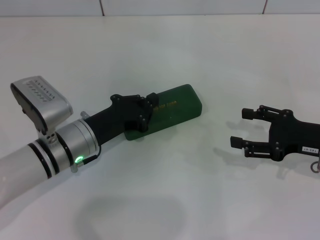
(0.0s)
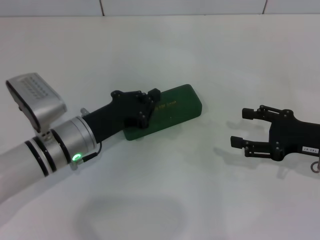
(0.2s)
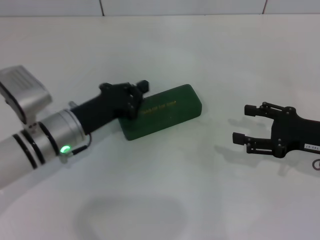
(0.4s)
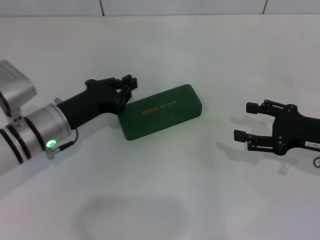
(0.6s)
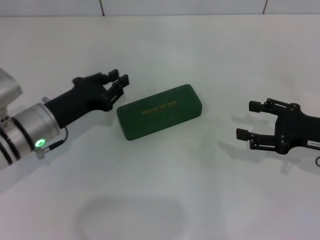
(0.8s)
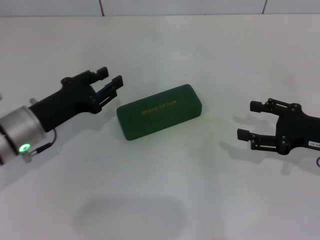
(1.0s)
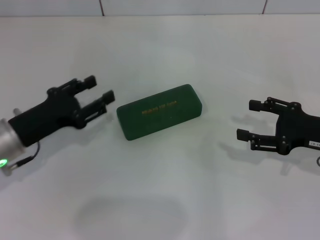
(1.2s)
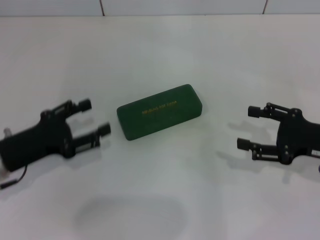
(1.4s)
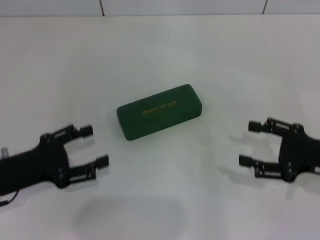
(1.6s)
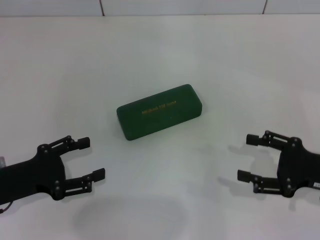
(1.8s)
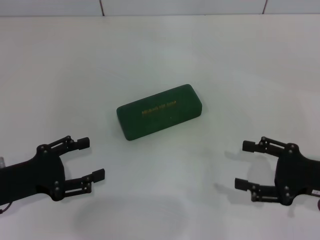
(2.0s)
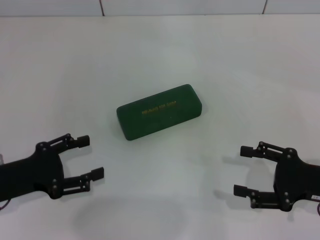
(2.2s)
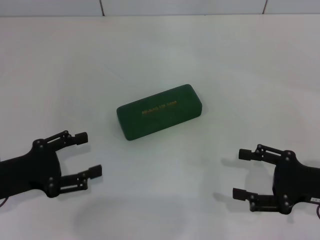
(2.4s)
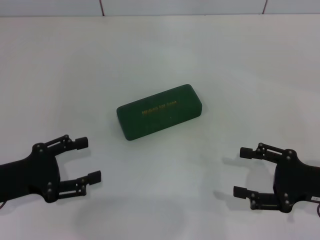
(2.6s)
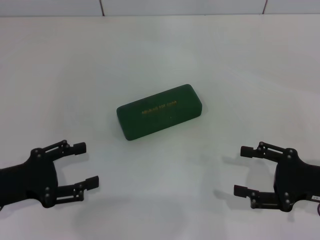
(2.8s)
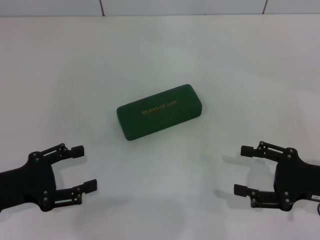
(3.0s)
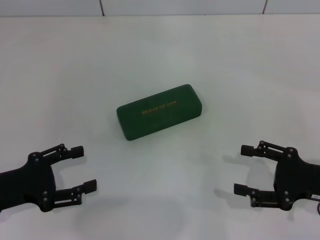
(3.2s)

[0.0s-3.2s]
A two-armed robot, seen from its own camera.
0.0s to 1.6s: The left gripper travels to the left and backward by some 15 cm, and opens up.
1.6s to 3.2s: The grippers move only a little.

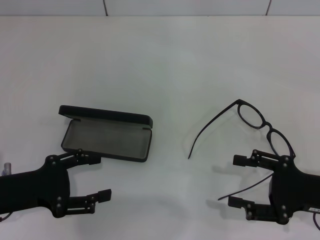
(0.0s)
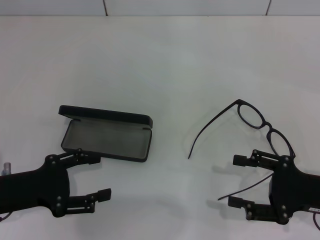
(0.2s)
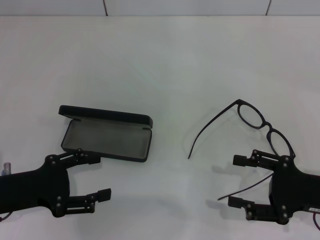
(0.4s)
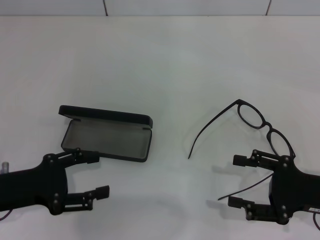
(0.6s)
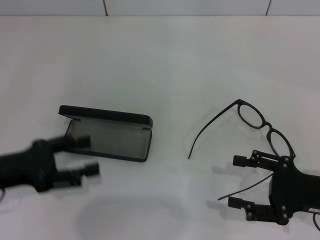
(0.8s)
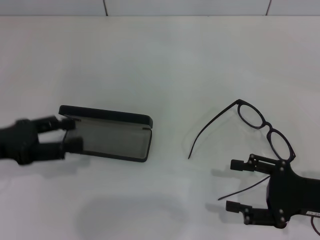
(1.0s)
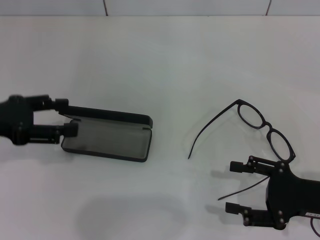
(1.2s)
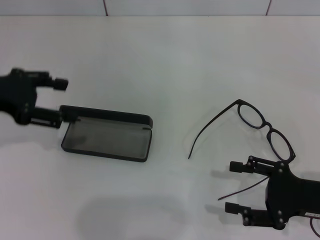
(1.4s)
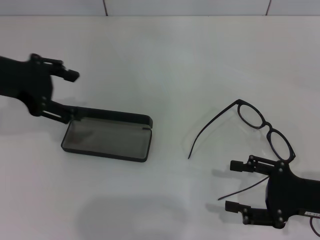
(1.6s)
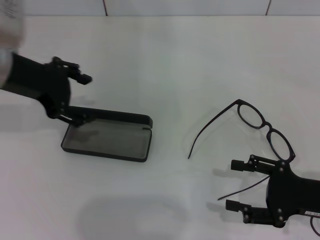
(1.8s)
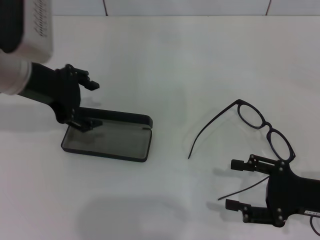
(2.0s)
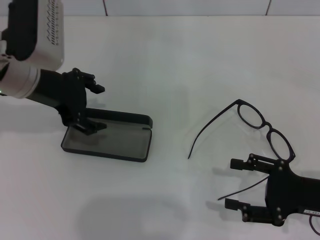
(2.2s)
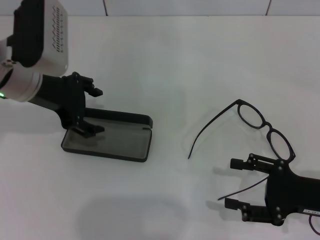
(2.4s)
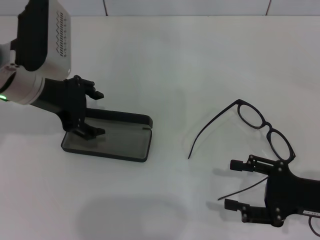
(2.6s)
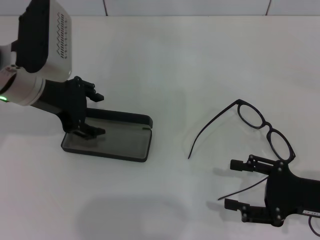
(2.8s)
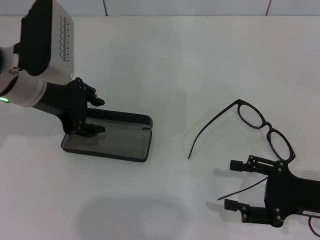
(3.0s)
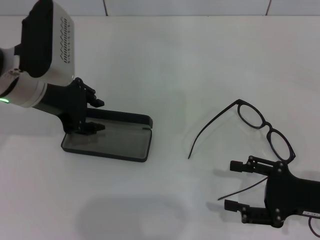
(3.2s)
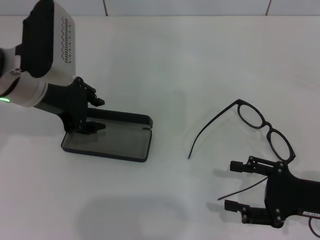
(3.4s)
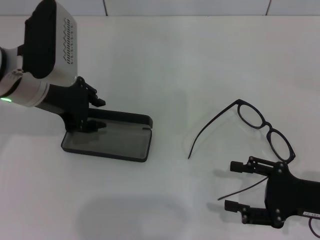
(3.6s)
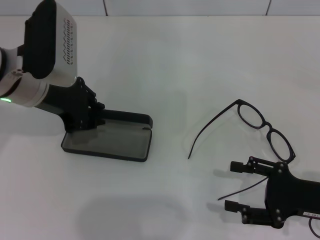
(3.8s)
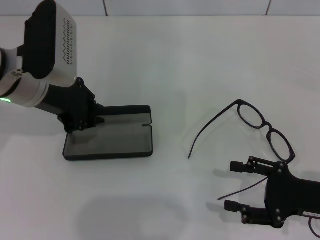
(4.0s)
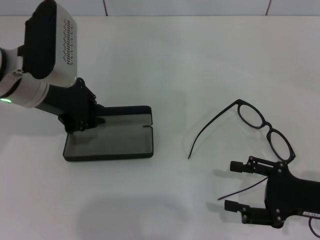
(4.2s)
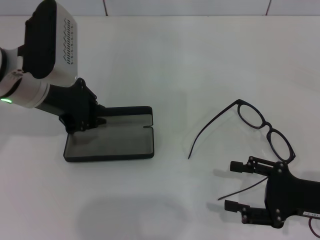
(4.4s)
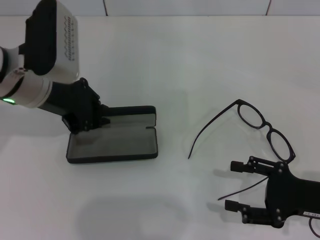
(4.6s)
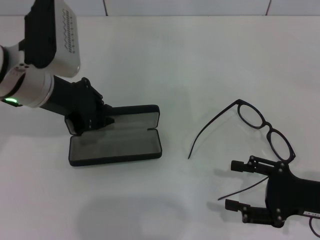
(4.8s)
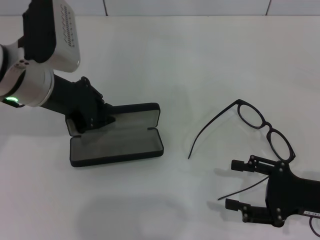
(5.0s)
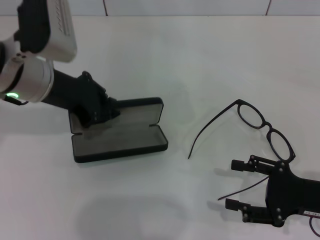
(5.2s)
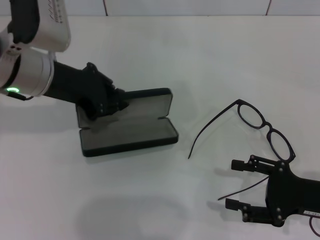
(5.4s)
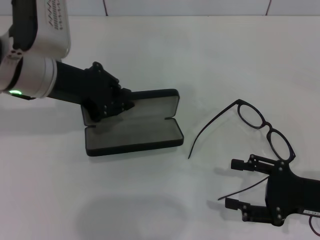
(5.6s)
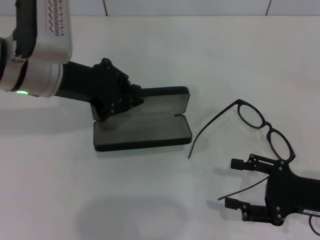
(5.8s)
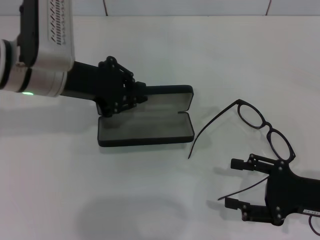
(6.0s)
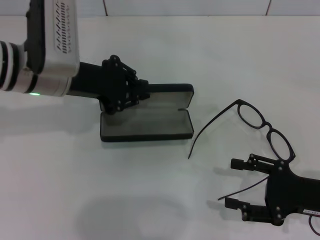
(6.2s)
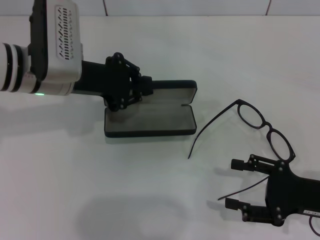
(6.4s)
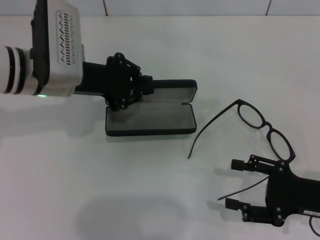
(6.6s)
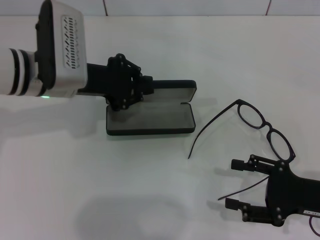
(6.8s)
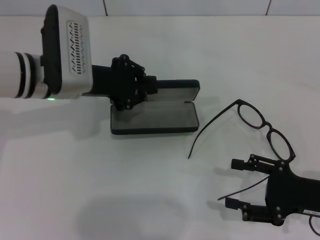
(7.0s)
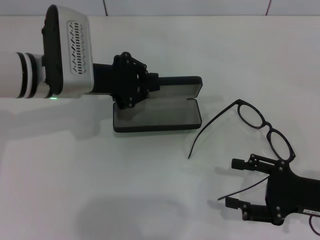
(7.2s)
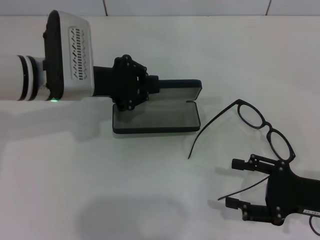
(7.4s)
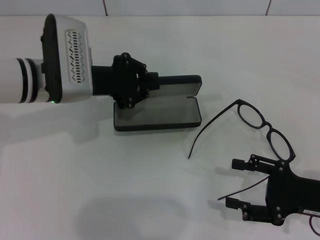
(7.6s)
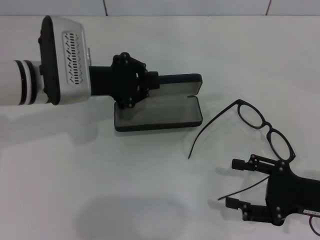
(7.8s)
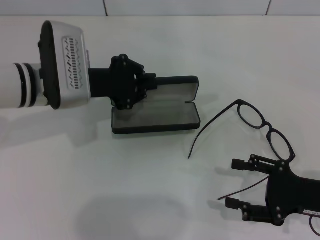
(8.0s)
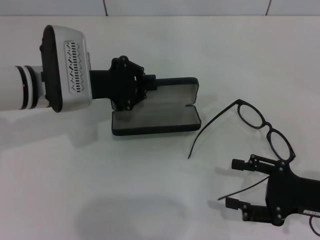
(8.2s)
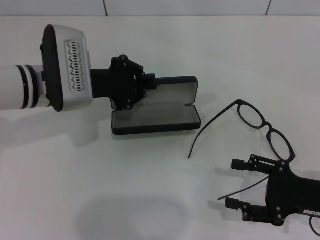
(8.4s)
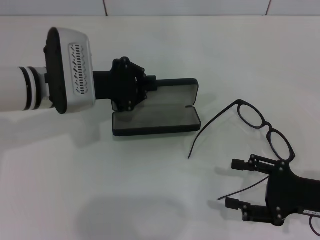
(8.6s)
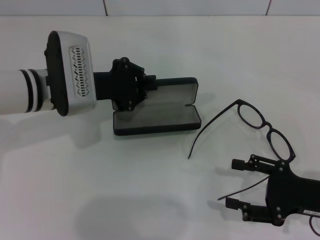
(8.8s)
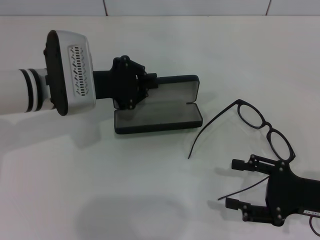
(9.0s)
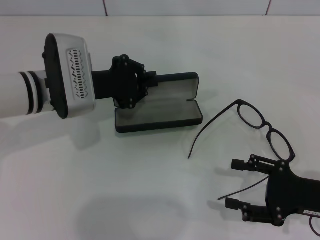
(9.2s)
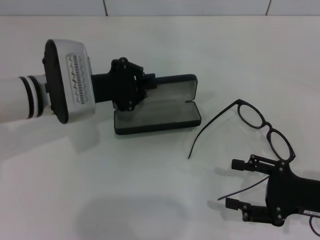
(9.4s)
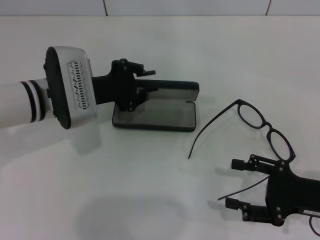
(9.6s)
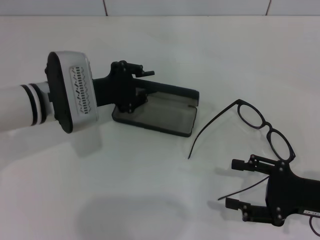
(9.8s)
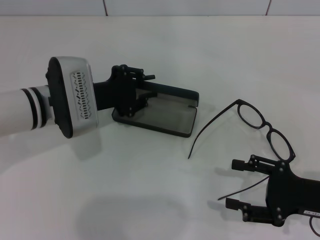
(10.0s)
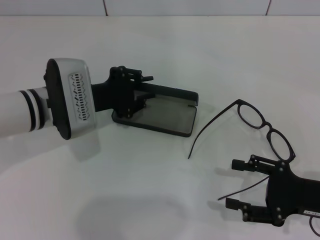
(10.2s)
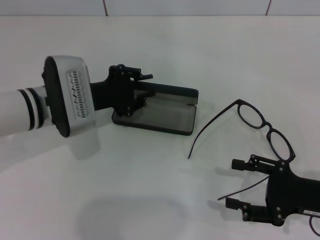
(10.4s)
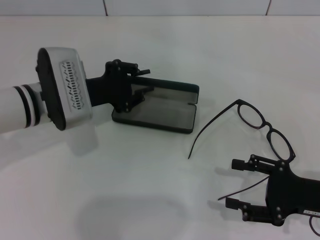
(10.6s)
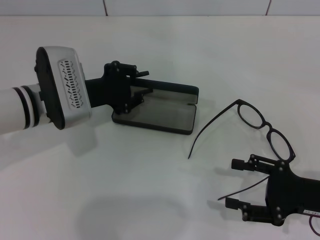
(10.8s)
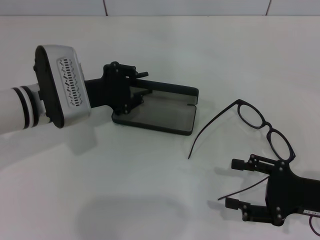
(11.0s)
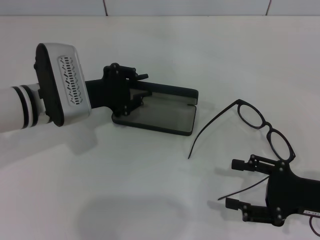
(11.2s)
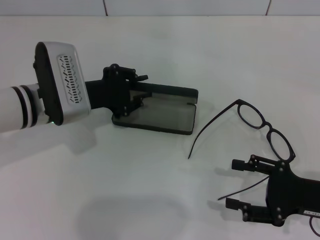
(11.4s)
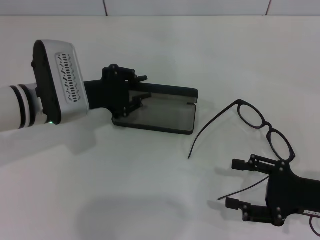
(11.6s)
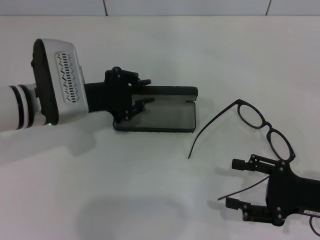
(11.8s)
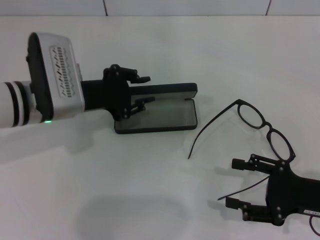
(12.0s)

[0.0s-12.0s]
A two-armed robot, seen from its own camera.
Step, 0.0s to 4.2s: Grab the glasses case with your left hand.
Step, 4.4s to 11.8s: Place the glasses case in the center of the table with your left hand.
0.0s to 1.6s: The left gripper is displaced upward and forward by approximately 20 cm.
1.6s to 3.0s: The left gripper heads to the right, covering about 5 cm.
3.0s to 4.4s: The left gripper closes up.
6.0s to 7.6s: The left gripper changes place by about 5 cm.
7.6s to 12.0s: The grippers move only a little.

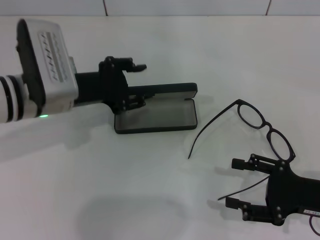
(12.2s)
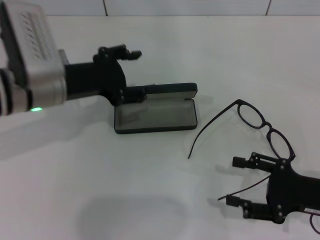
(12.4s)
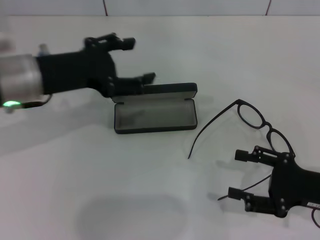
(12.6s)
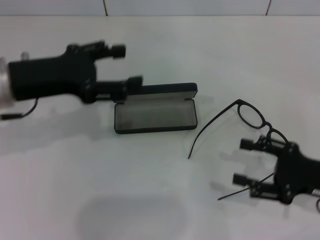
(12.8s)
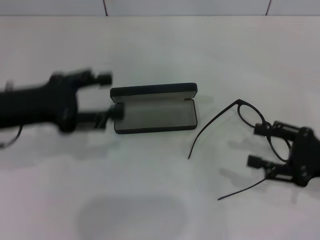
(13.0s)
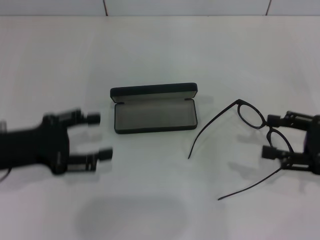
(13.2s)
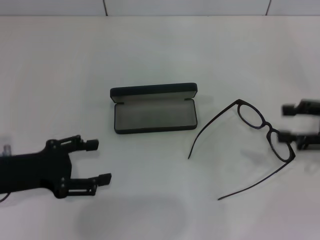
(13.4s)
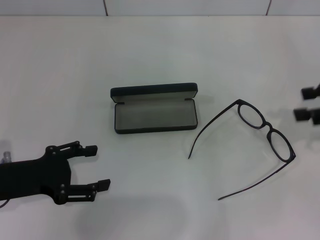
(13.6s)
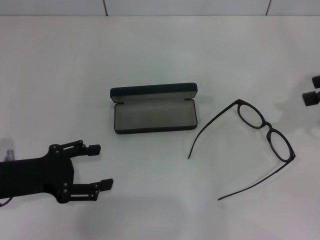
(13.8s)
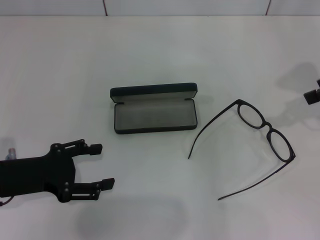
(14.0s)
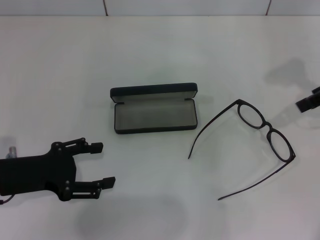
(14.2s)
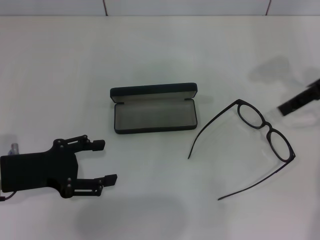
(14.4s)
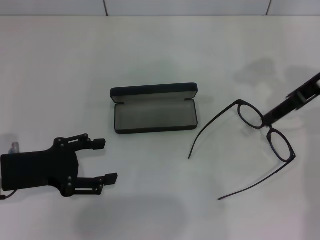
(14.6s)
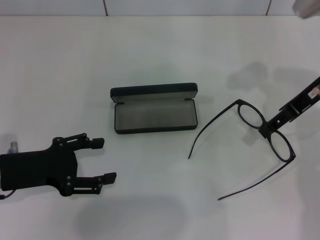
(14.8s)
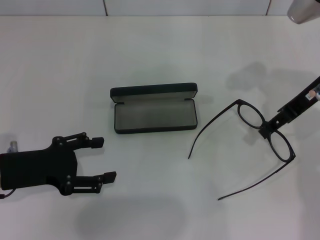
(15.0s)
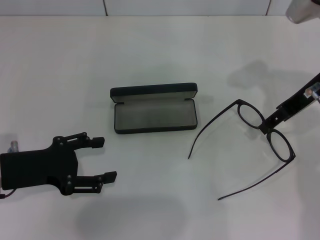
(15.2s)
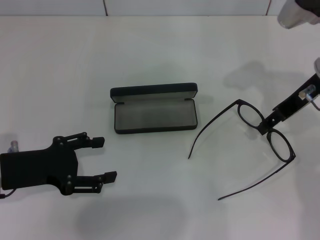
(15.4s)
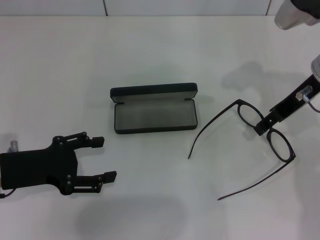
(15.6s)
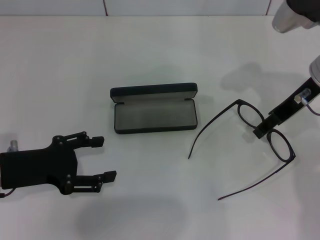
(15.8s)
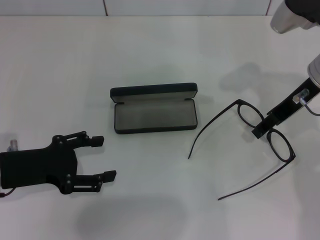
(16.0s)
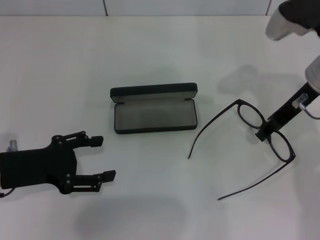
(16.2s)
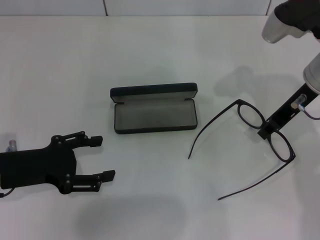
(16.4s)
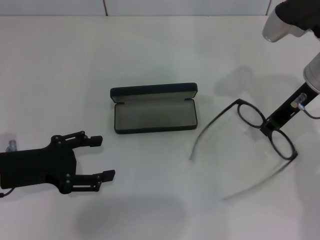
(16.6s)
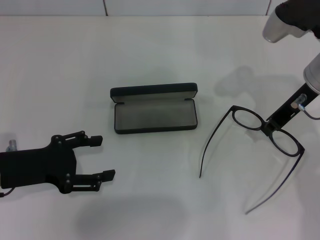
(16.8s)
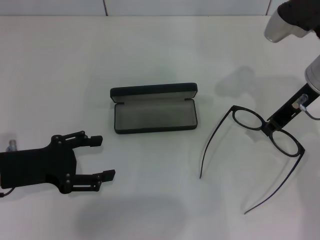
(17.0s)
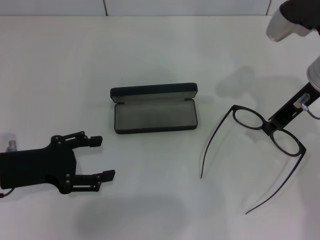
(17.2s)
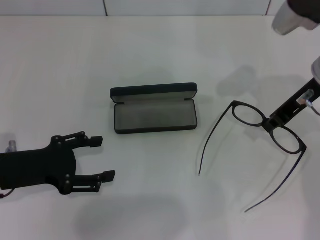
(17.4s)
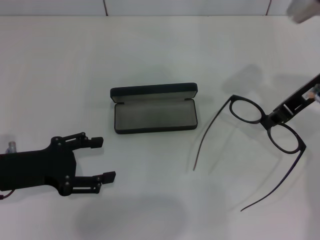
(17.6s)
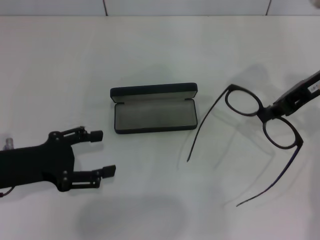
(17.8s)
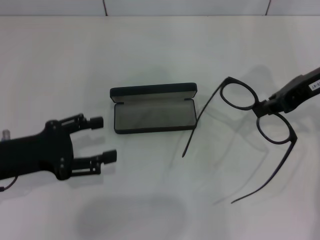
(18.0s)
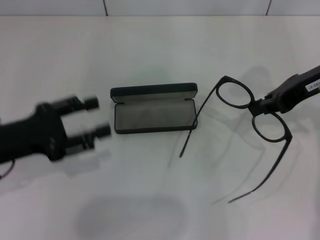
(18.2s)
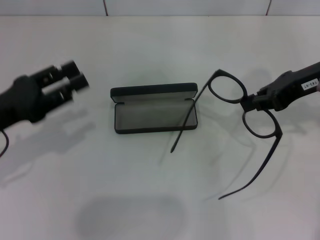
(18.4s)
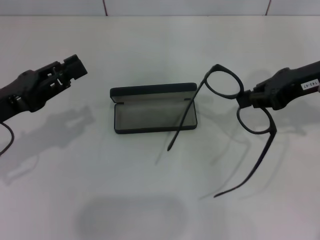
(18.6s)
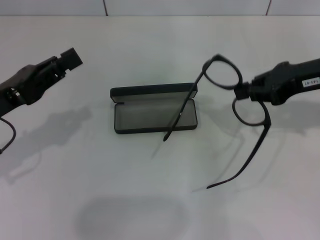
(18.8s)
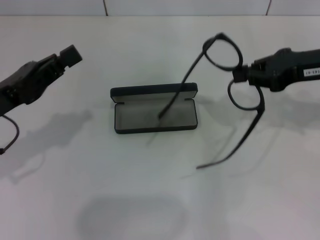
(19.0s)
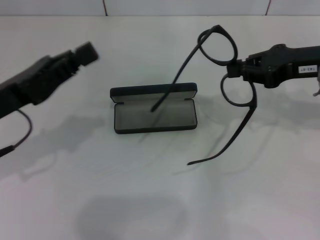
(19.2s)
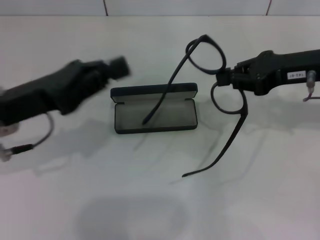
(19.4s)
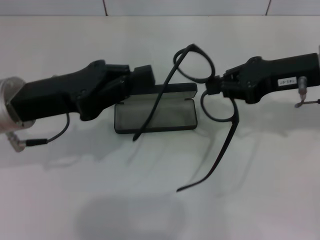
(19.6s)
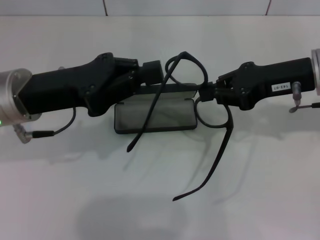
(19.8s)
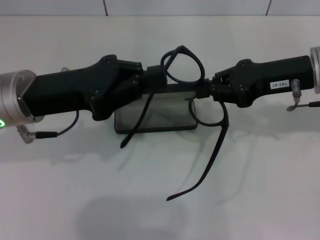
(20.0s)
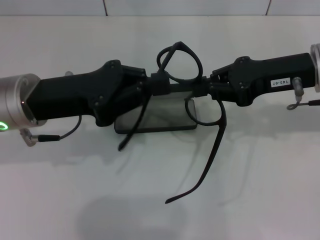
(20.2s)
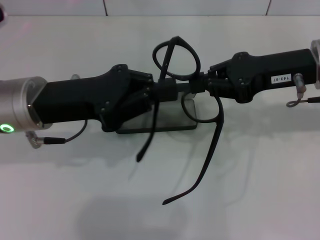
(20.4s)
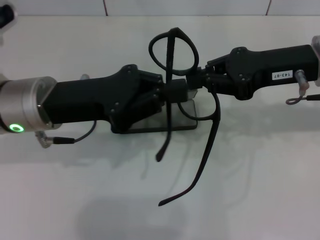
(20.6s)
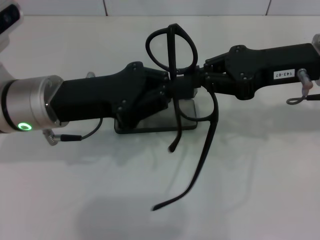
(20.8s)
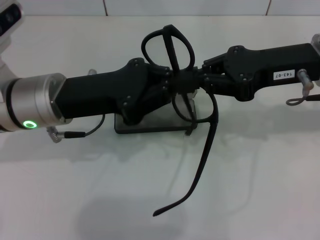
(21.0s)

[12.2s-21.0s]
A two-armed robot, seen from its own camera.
Step, 12.2s to 17.4s: Grab the eyeglass frame with your right hand.
12.2s to 13.6s: The left gripper is displaced backward and to the left by some 15 cm, and opens up; the right gripper moves upward, forward and to the right, roughly 20 cm.
13.6s to 15.2s: The right gripper is displaced to the left and forward by some 15 cm.
15.2s to 16.6s: The right gripper closes.
16.6s to 18.0s: The right gripper moves approximately 5 cm, and closes its fingers.
18.0s to 19.6s: The left gripper travels to the right and forward by some 10 cm, and closes.
19.6s to 21.0s: The grippers move only a little.
